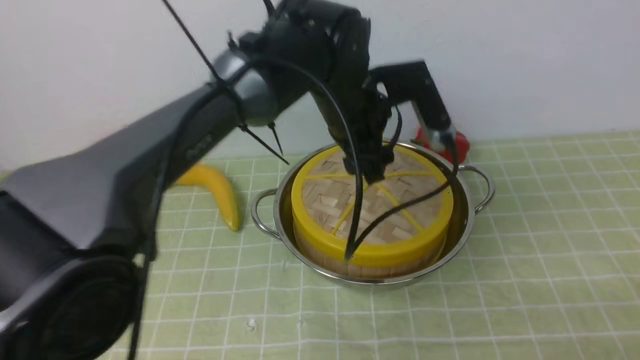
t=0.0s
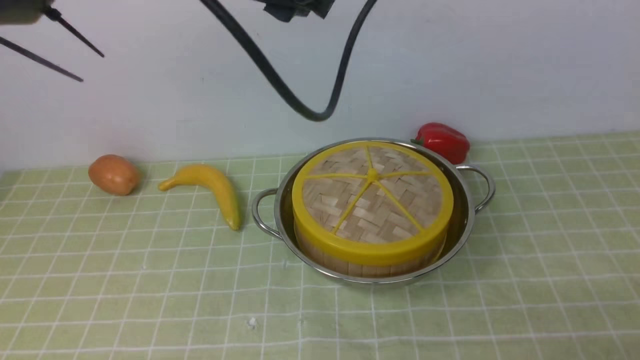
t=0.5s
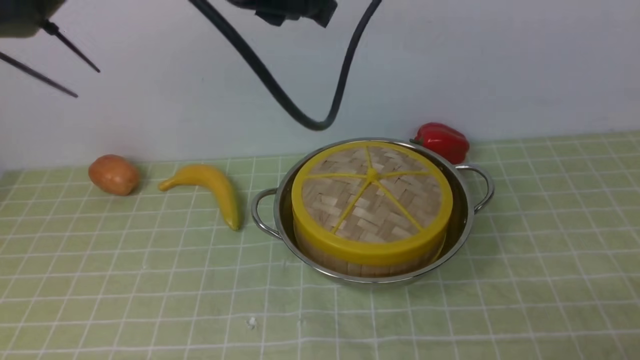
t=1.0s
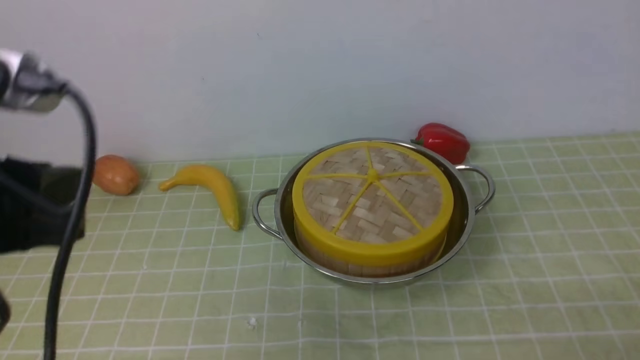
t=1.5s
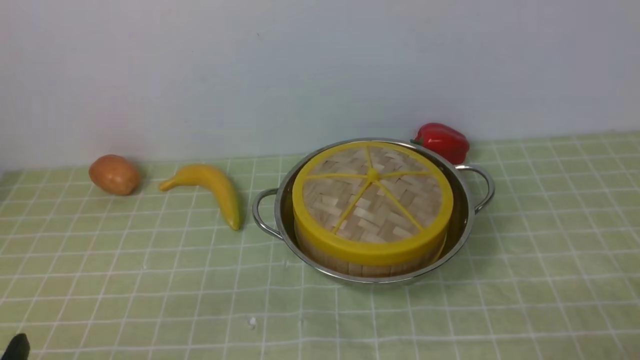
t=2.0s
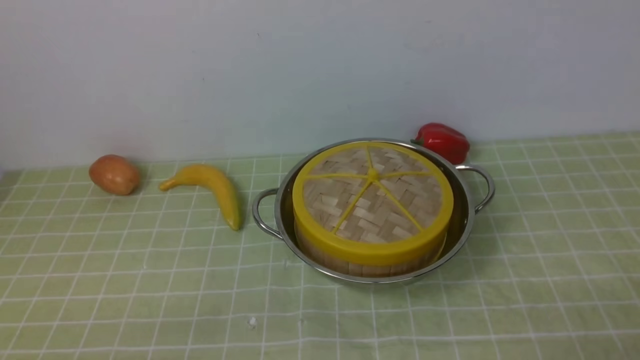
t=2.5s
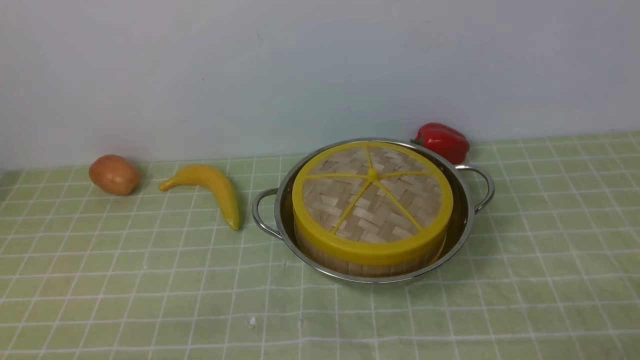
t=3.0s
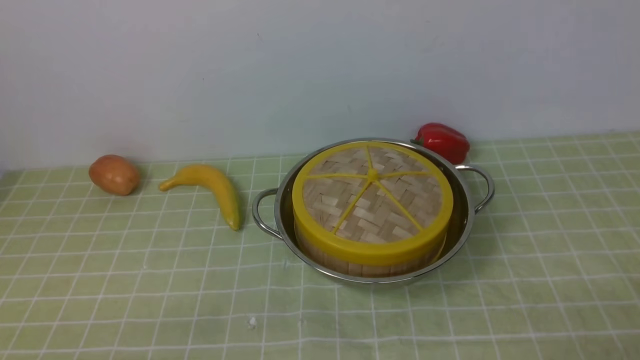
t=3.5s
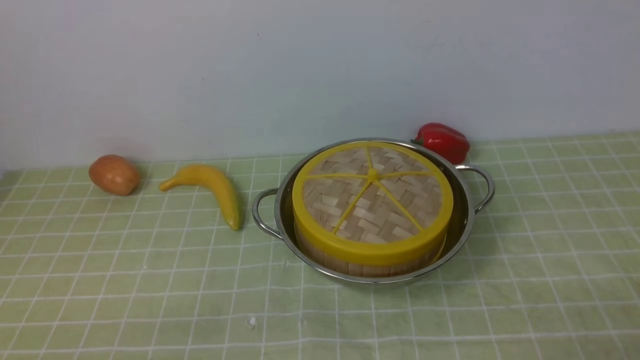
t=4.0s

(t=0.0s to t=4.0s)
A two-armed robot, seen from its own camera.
Task of the whole recording: place the steamer in the pot on the green tablecloth, and put the lid on the steamer.
t=0.0s - t=2.0s: The left gripper goes some 40 cm backward and to the left, and closes its fingers.

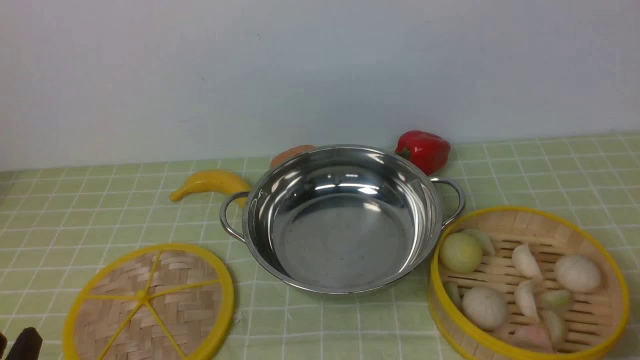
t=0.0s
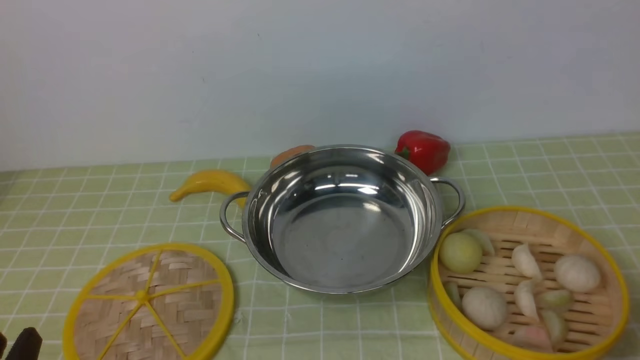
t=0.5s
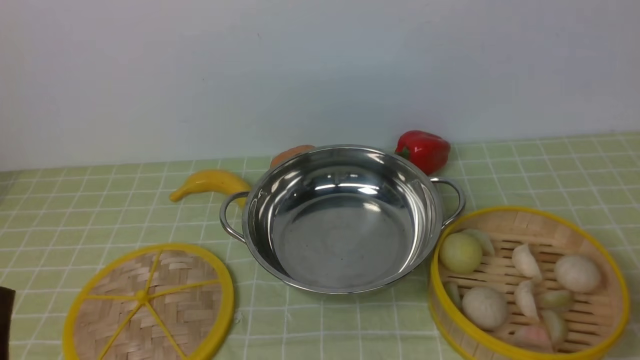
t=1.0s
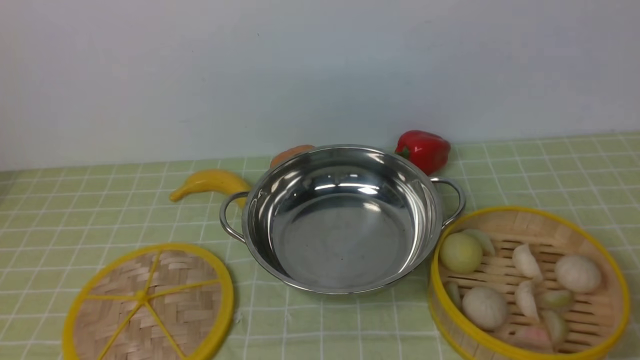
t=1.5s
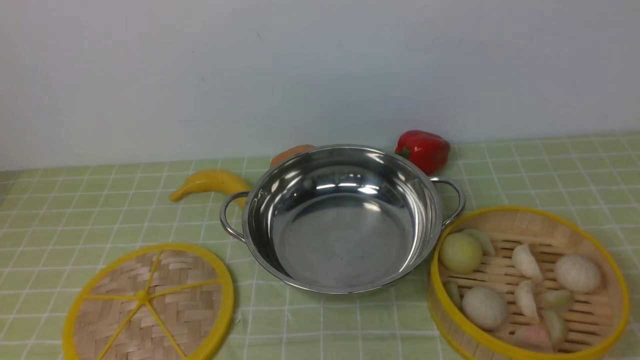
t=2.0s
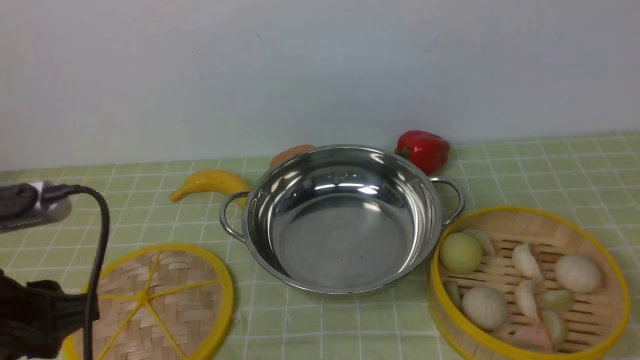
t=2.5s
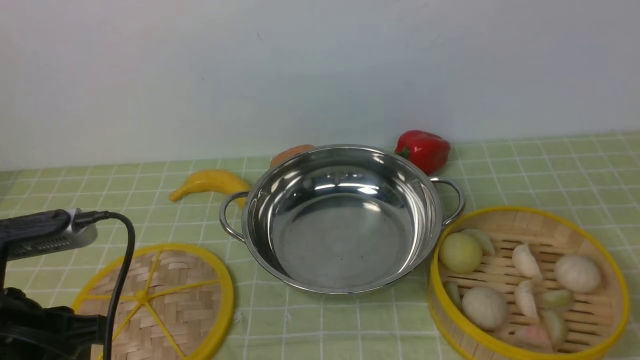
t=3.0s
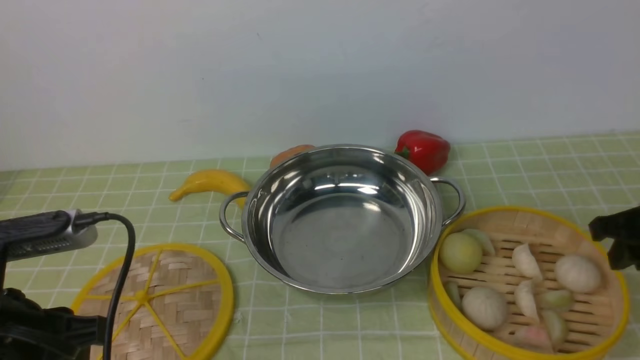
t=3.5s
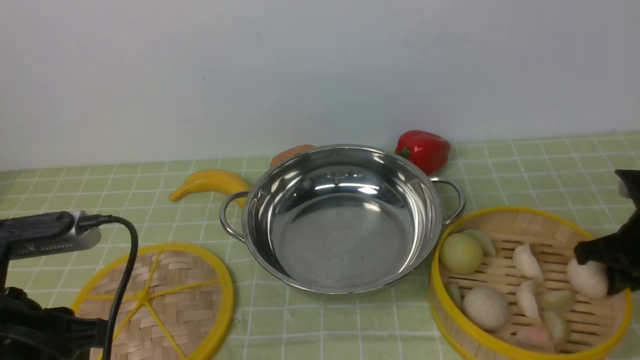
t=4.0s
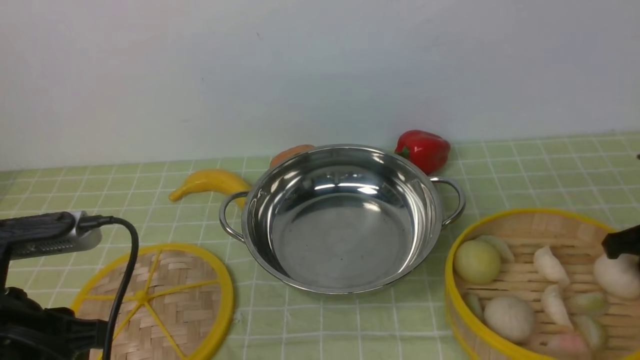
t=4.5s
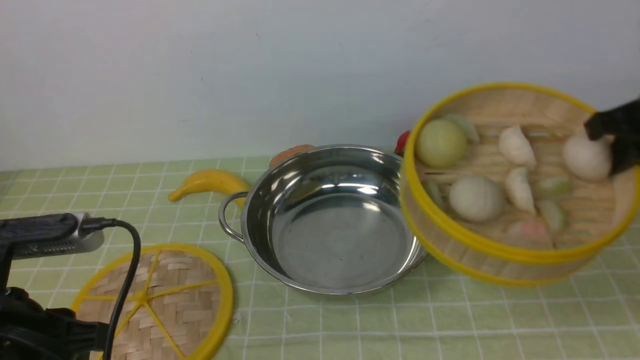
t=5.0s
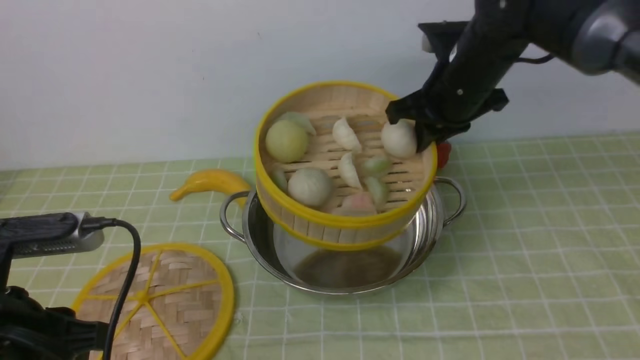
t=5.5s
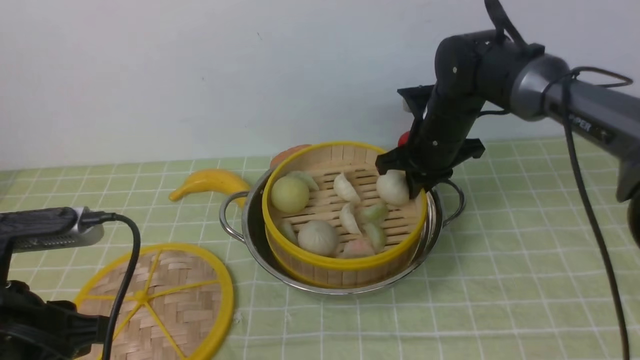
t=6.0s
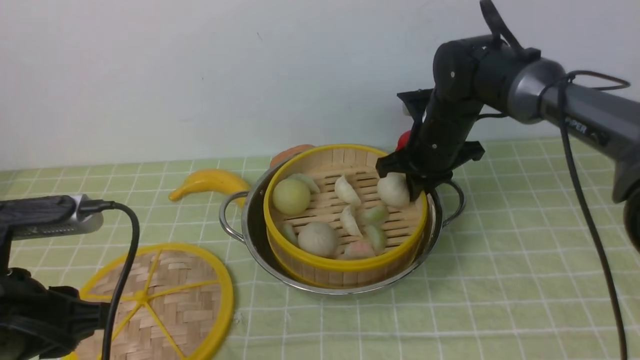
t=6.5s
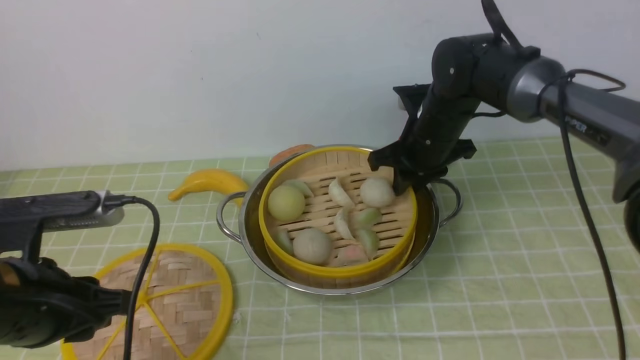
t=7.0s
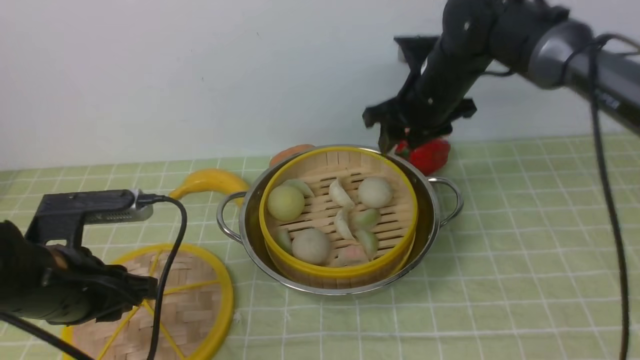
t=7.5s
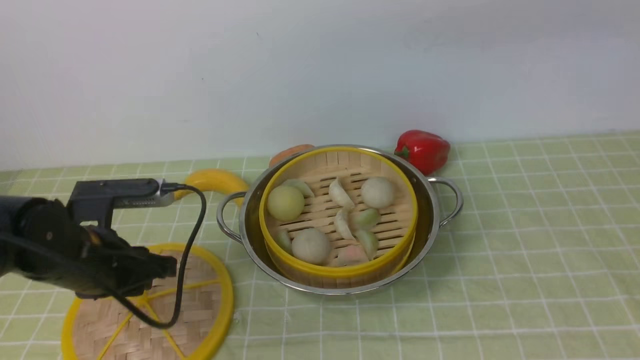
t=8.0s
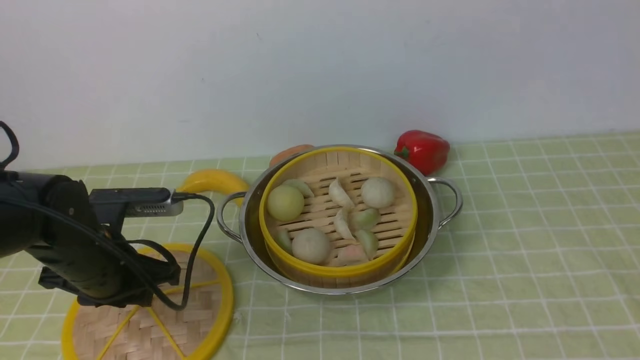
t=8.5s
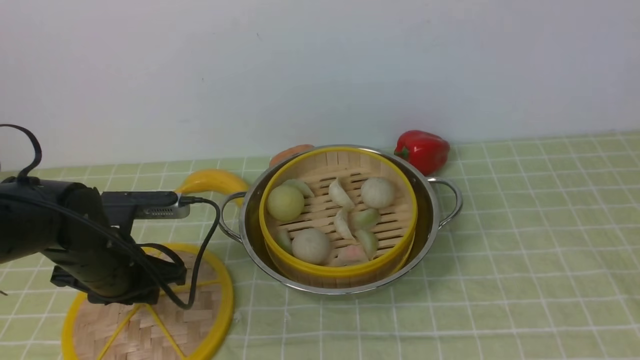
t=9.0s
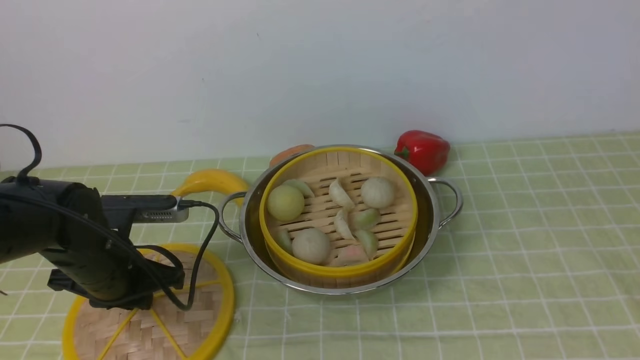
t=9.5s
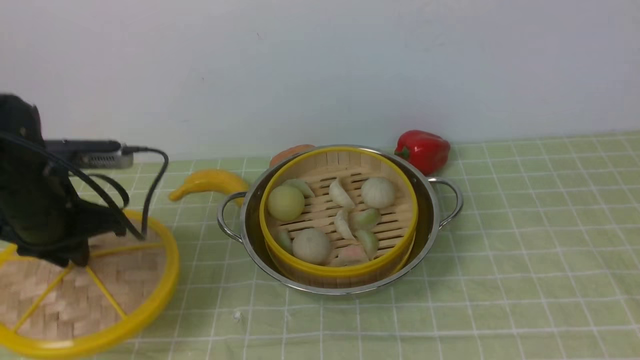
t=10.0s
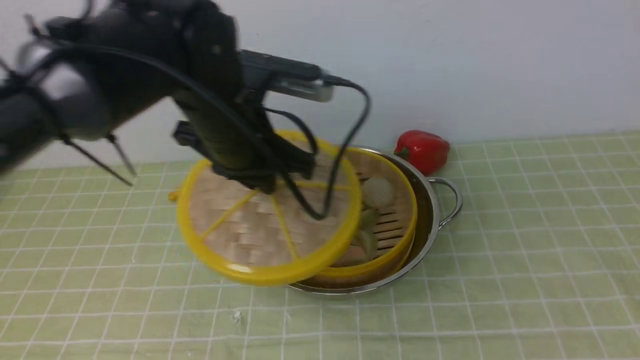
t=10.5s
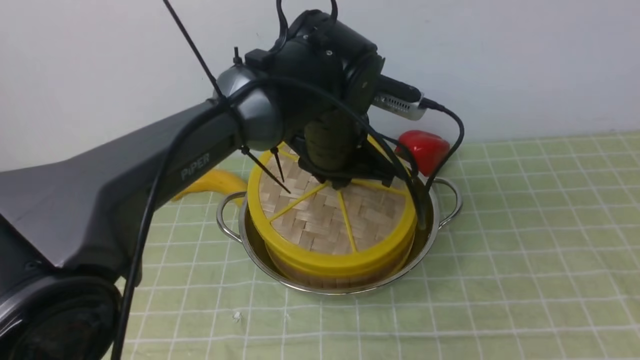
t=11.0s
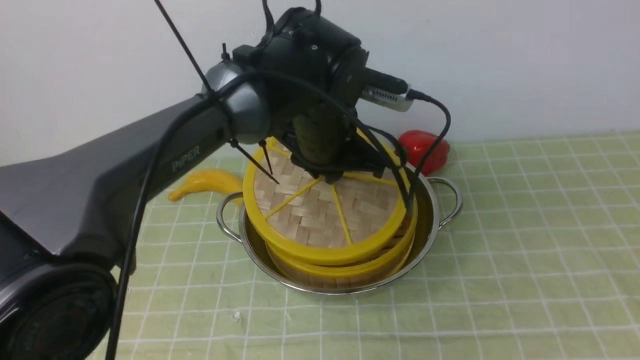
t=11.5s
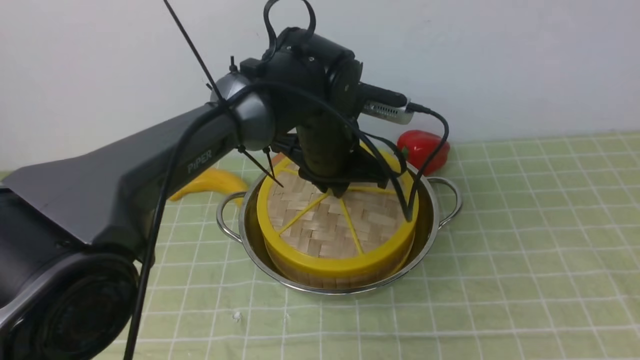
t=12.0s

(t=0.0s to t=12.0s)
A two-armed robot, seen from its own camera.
Task of the whole recording: place the steamer in the pot on the green tablecloth, and put the lid on the steamer.
Step, t=0.0s - t=4.5s: use the right arm to lift the steamer closest to it.
Step, t=5.0s - t=7.5s: use the right arm to put the steamer into the iron steamer pot in the middle.
Step, t=8.0s - t=10.0s: use the left arm to lift the lid of the steamer.
t=0.0s - t=2.0s: The left gripper is displaced upward by some 20 cm.
t=2.0s - t=4.0s: The right gripper is displaced downward and forward by roughly 35 cm, and closes, while the left gripper shifts approximately 15 cm downward and forward.
t=4.0s - t=6.0s: The right gripper is displaced to the left and forward by some 25 cm.
t=6.0s - t=8.0s: The left gripper goes approximately 15 cm forward and downward; the right gripper shifts approximately 35 cm upward and backward, and opens.
t=8.0s - t=10.0s: The left gripper is displaced upward by some 5 cm. Meanwhile the right gripper moves backward and to the right, roughly 35 cm.
t=10.0s - t=12.0s: The left gripper is displaced to the right by about 25 cm.

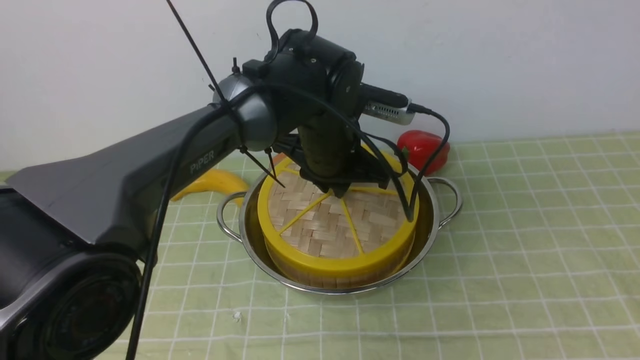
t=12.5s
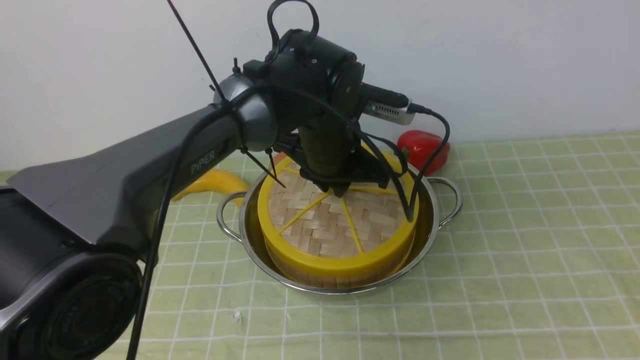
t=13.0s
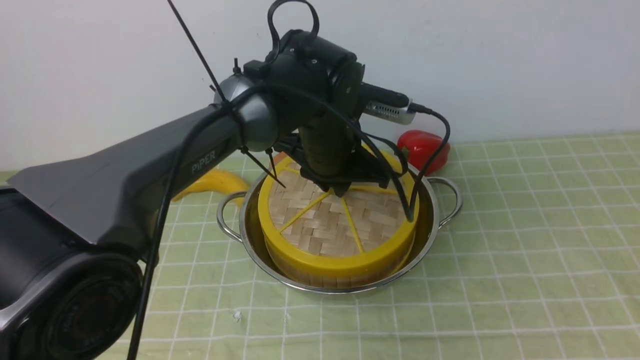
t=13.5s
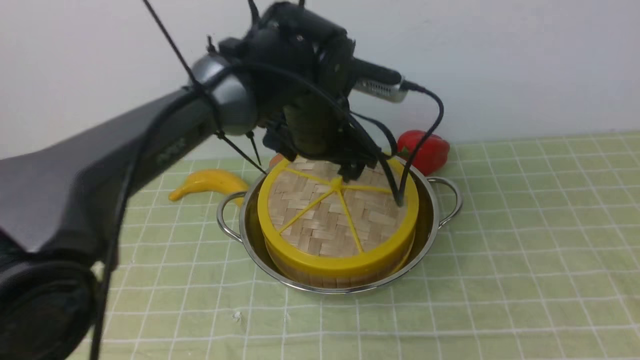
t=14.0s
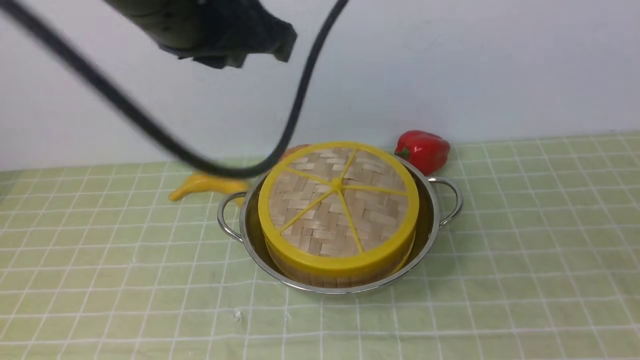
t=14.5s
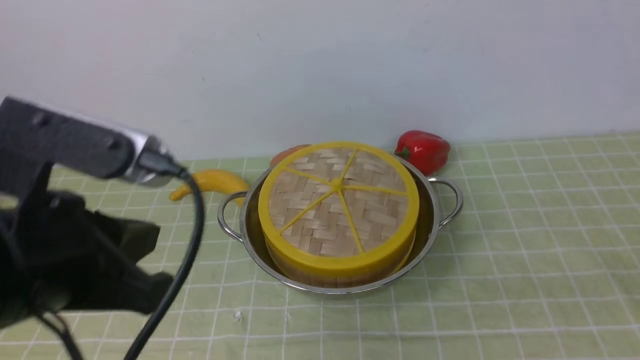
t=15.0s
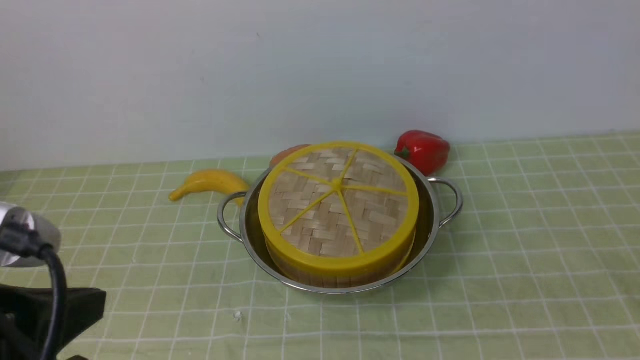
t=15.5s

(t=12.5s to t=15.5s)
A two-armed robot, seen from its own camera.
Task of the whole recording: place the steamer in the pot on the green tablecloth, and put the lid on the steamer.
t=12.5s - t=14.0s: The left gripper heads upward, covering approximately 5 cm, and opens up.
t=14.0s - t=15.5s: The right gripper shifts approximately 20 cm downward, and closes up, while the left gripper goes approximately 35 cm backward and to the left, and closes up.
